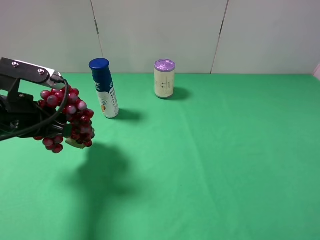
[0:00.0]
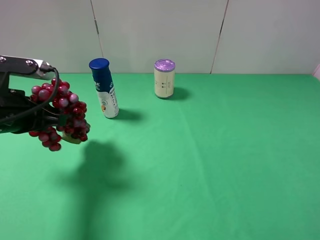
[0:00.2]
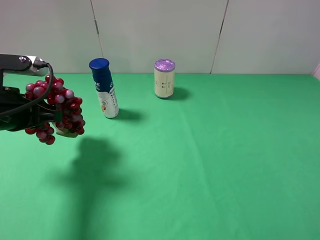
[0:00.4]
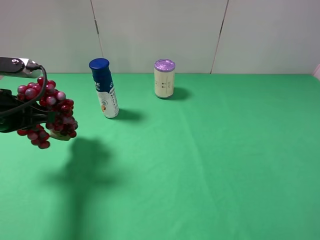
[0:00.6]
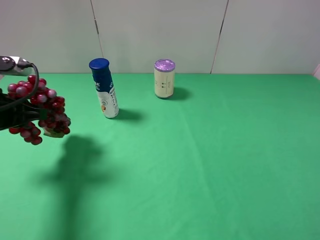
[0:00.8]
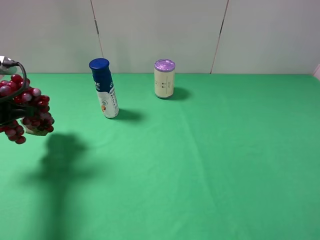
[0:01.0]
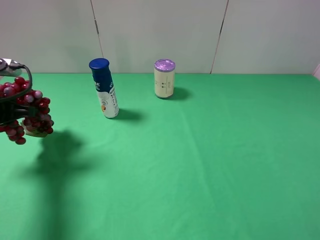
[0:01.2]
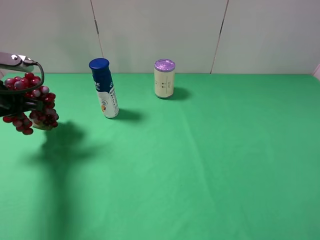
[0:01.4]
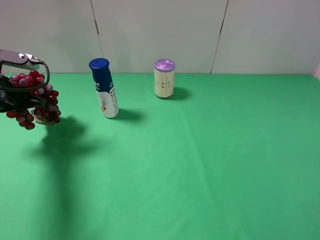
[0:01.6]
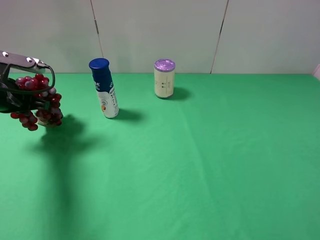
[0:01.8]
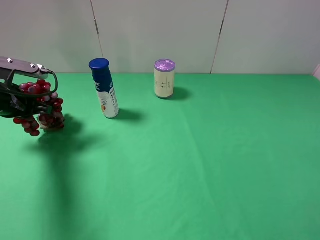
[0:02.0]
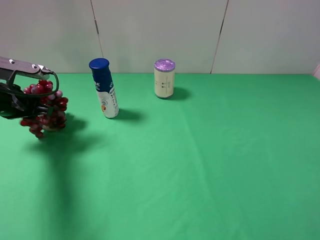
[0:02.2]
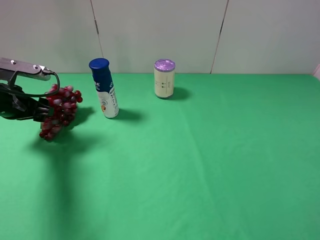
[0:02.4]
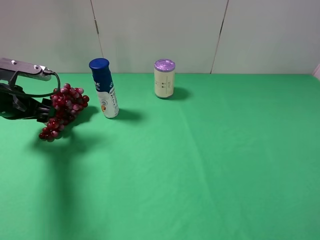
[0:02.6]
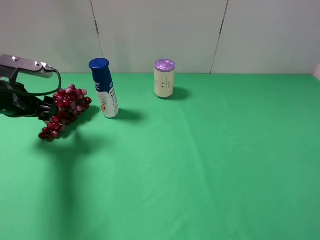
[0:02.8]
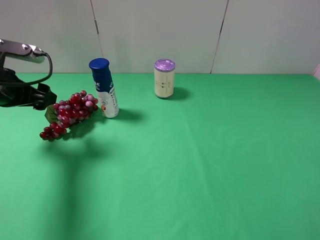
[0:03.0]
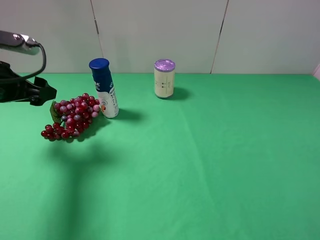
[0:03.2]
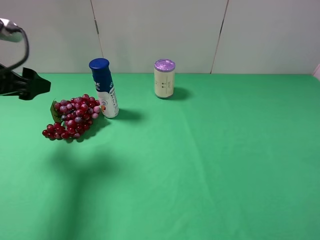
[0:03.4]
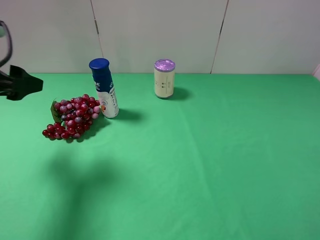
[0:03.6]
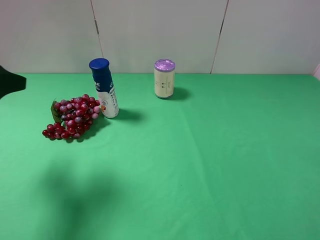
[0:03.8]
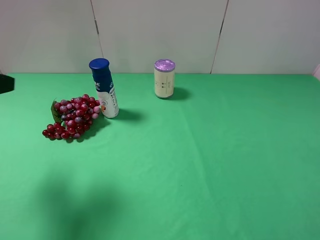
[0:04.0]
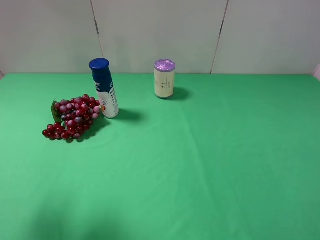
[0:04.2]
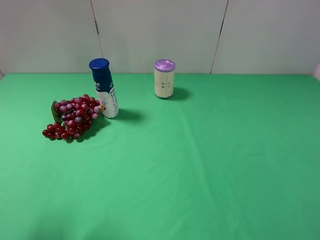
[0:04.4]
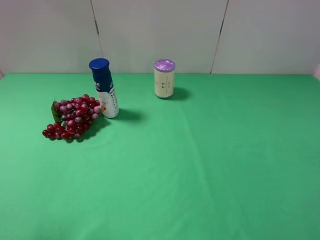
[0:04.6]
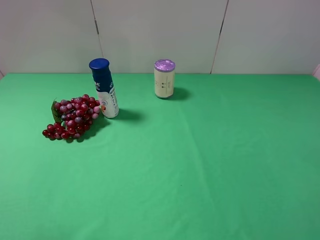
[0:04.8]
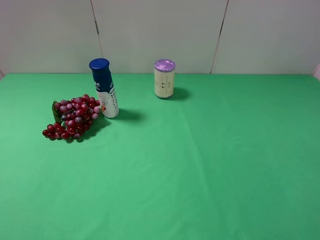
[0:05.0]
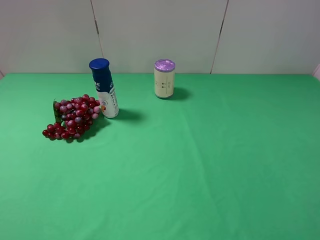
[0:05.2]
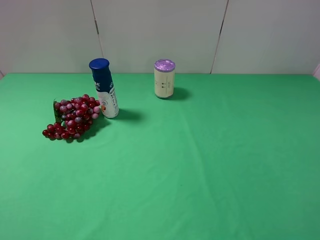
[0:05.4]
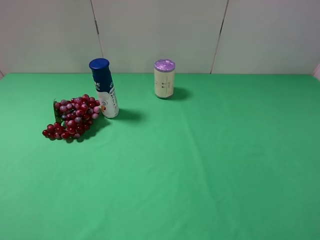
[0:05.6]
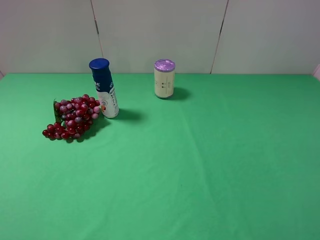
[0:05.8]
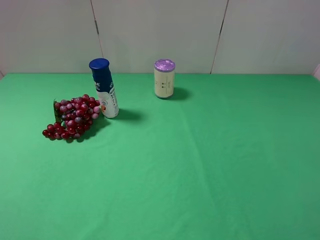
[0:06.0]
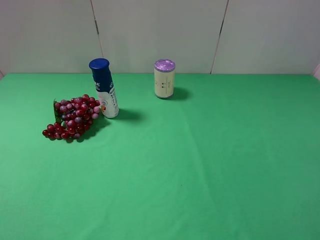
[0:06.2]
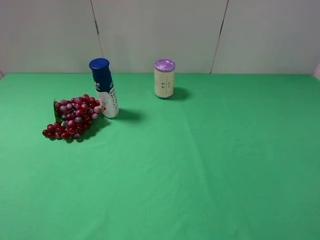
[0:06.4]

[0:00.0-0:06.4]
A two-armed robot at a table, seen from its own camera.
Task of the whole recording: use the right gripper to pick up the item and transfer it from the right gripper to the left gripper.
0.0 to 1.6 s: The left gripper is displaced forward and to the left by about 10 cm.
1.6 to 3.2 s: The left gripper changes place by some 5 cm, and opens.
3.2 to 4.8 s: The left gripper heads backward, covering approximately 25 cm.

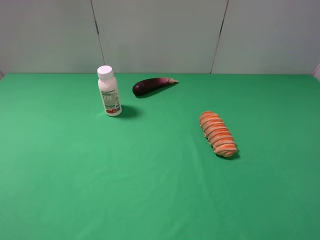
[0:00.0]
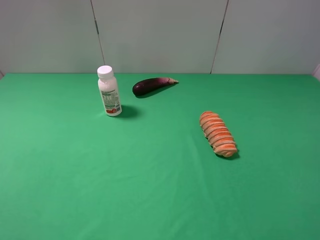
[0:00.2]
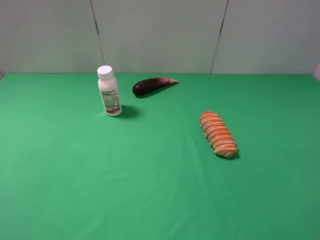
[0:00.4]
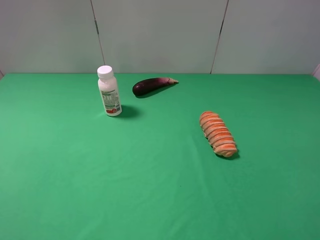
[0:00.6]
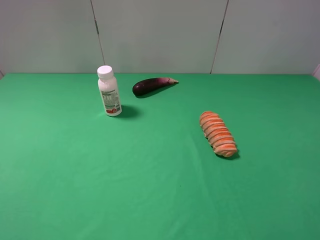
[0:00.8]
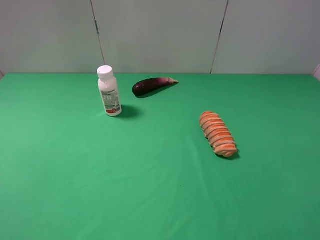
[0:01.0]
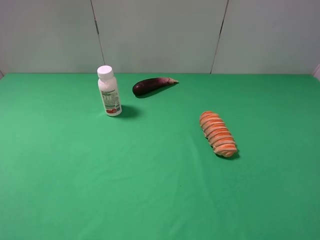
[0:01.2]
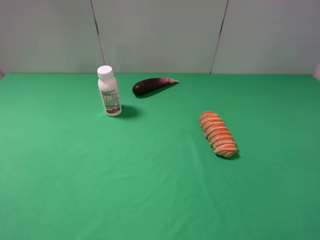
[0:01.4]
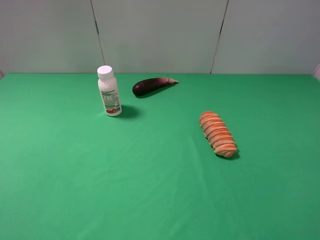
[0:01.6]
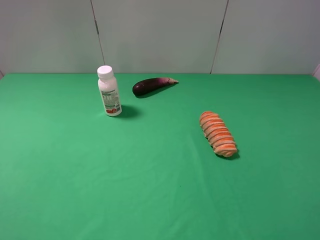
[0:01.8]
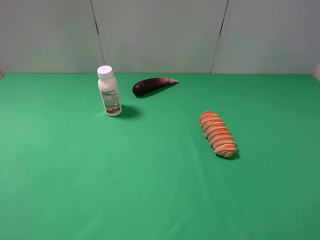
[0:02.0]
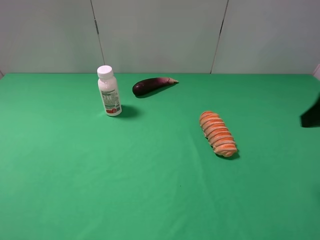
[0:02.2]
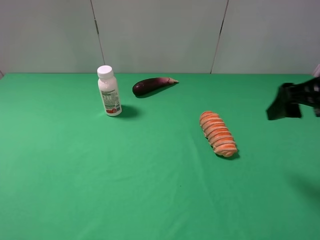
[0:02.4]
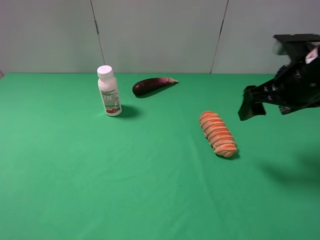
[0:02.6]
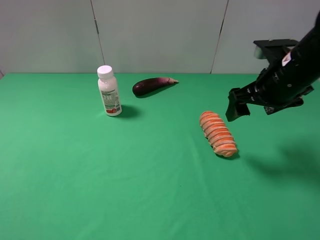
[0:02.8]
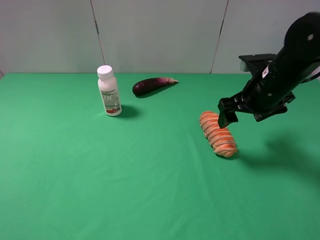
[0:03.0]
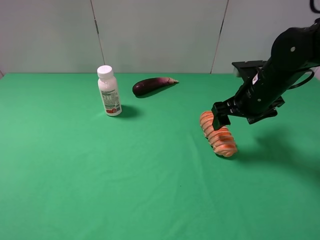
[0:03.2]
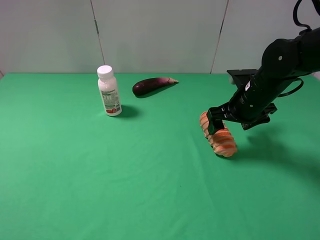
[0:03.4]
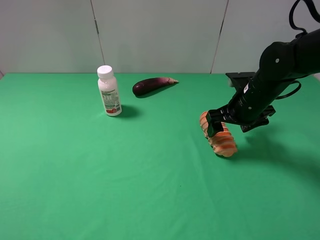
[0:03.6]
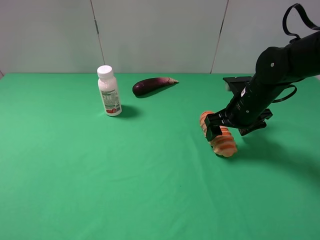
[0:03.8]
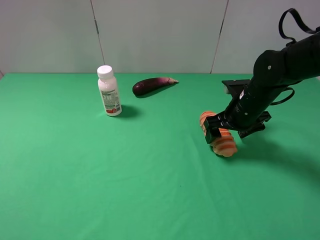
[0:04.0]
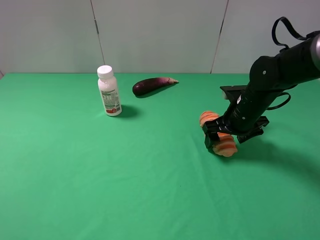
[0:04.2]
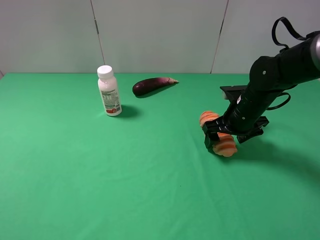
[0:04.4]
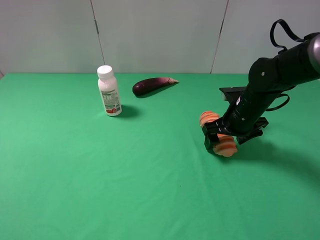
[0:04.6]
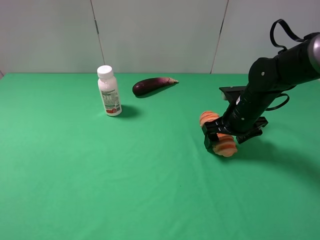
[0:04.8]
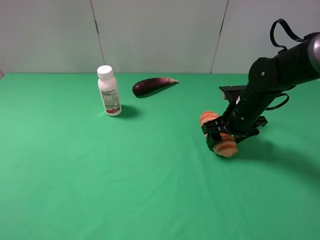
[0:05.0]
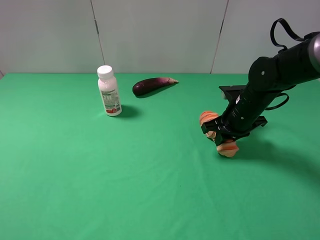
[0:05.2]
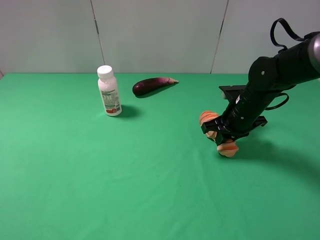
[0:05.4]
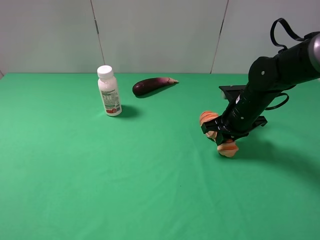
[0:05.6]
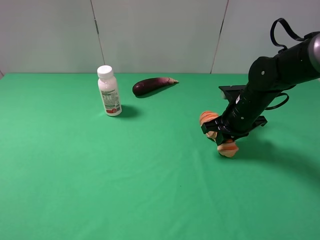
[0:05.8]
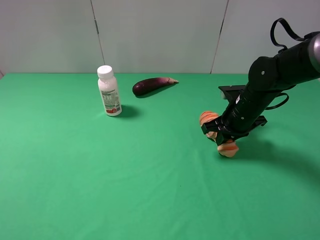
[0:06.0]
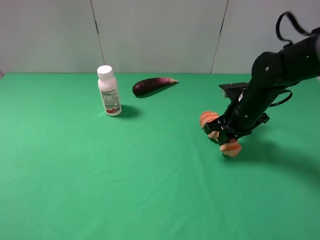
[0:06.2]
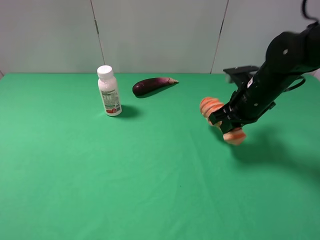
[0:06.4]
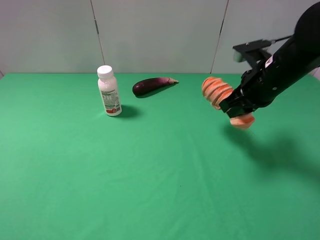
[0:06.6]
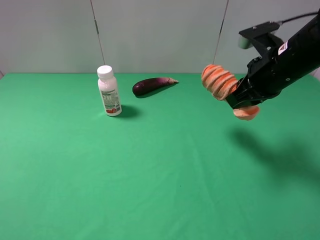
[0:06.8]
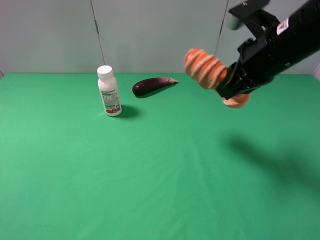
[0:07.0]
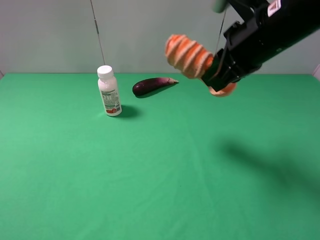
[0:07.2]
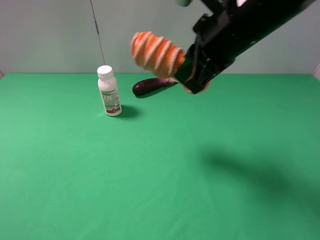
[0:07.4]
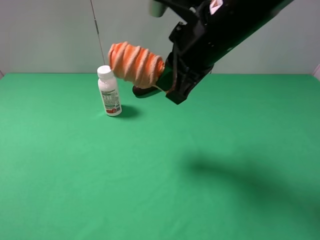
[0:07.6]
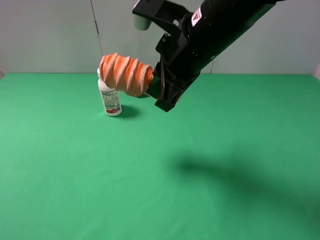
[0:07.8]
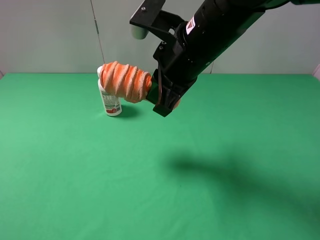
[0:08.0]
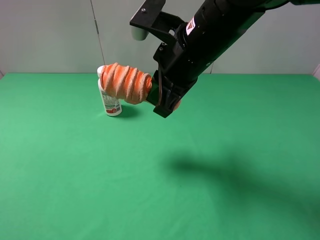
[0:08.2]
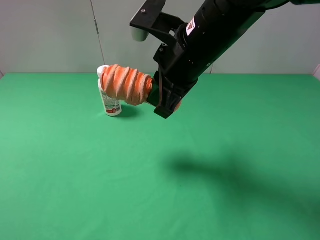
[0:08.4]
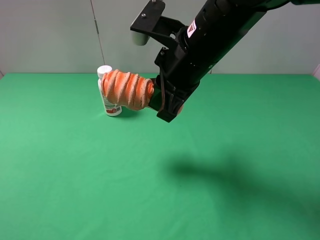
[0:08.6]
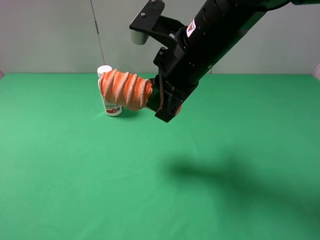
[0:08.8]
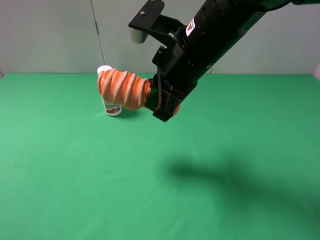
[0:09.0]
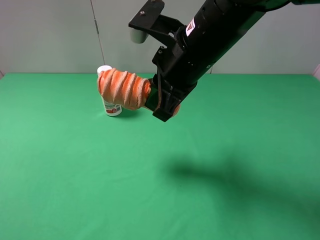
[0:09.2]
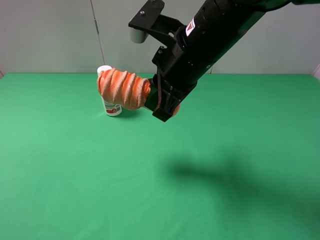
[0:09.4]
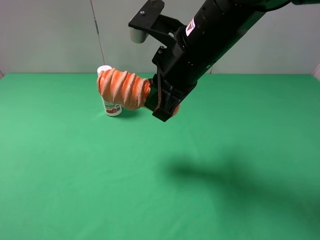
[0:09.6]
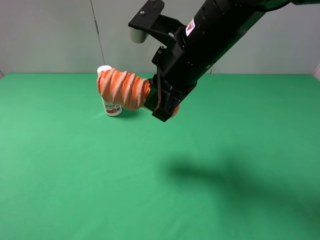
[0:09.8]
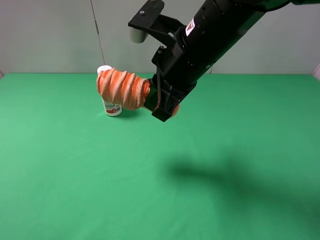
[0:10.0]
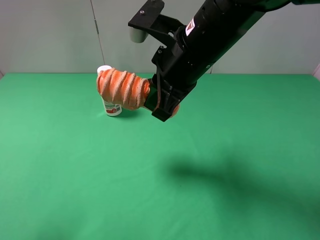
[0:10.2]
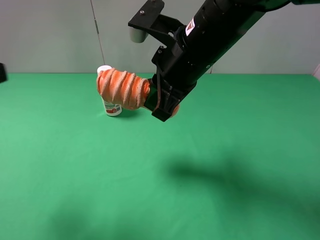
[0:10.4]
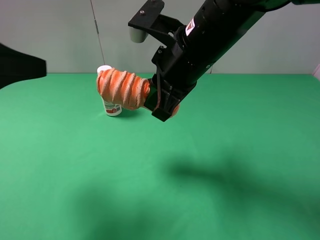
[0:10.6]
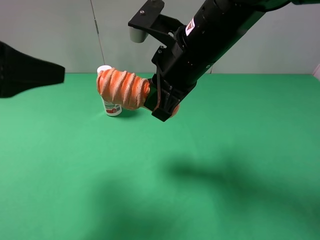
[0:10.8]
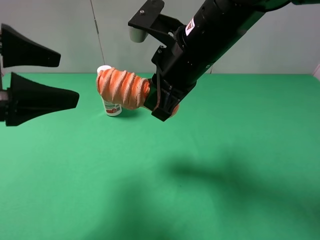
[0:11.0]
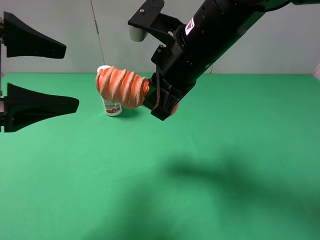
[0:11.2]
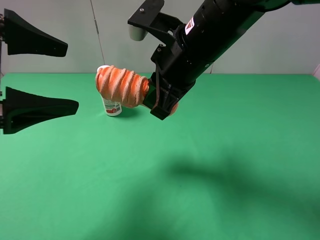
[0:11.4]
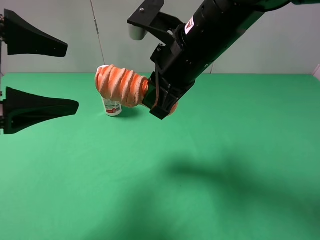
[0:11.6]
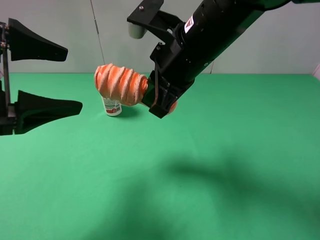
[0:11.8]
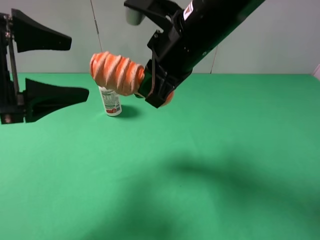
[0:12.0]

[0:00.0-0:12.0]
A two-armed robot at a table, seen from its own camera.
Task of the whole recording: use the right gripper to pick up the item and transfer it from the right gripper to the left gripper.
Step, 0.0 to 5.2 s: Use the right gripper to grab the bread on the right side of the table.
0.0 to 1.6 s: Both grippers stay put.
1.6 to 3.0 s: The right gripper shifts approximately 30 cm forward.
3.0 to 4.4 s: The right gripper moves downward, roughly 5 cm.
4.4 to 6.0 s: The right gripper closes its fingers.
6.0 to 7.6 s: The right gripper is displaced upward, to the left and backward by about 25 cm.
7.6 to 9.0 s: The grippers stay close to where they were, moving slightly.
9.0 to 10.4 s: The left gripper is displaced forward by roughly 10 cm.
10.4 to 12.0 s: The left gripper moves forward and to the right, roughly 10 cm.

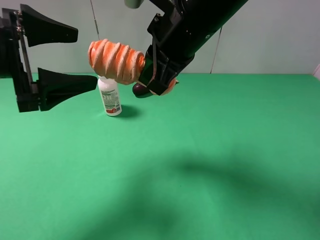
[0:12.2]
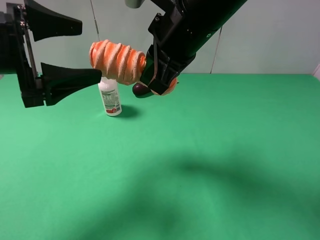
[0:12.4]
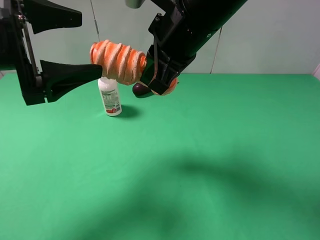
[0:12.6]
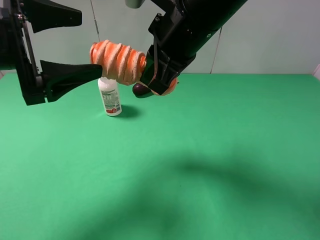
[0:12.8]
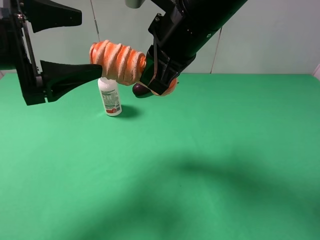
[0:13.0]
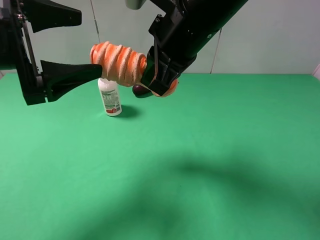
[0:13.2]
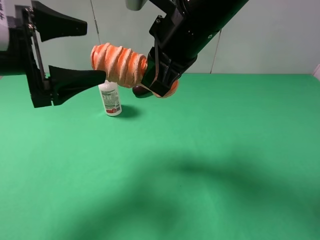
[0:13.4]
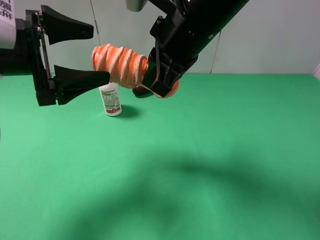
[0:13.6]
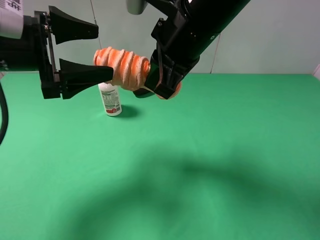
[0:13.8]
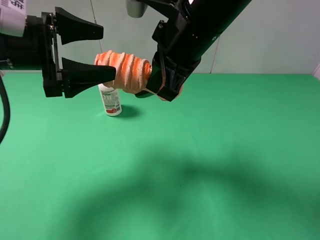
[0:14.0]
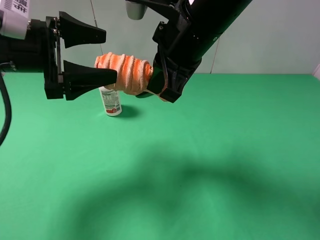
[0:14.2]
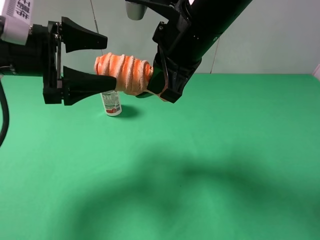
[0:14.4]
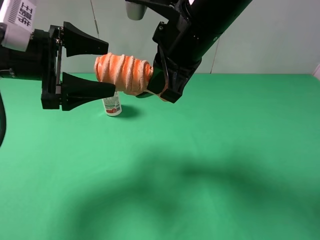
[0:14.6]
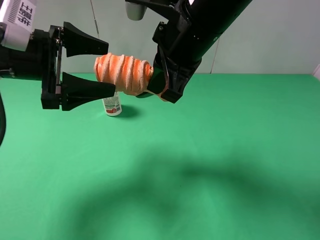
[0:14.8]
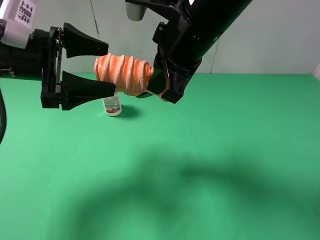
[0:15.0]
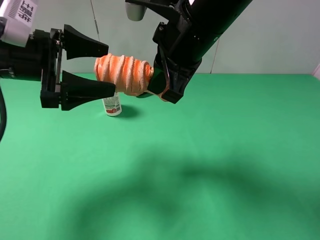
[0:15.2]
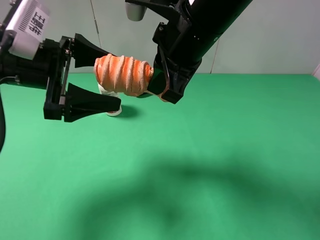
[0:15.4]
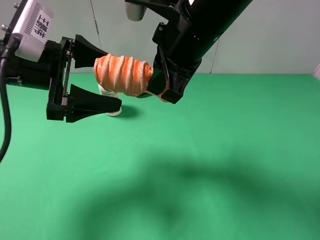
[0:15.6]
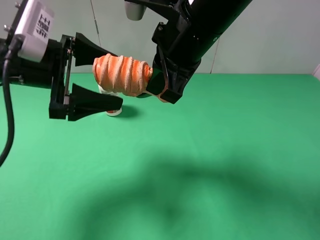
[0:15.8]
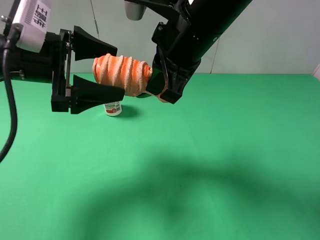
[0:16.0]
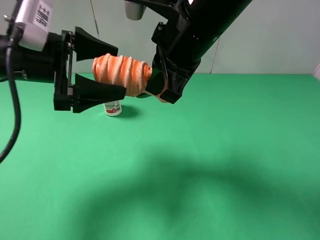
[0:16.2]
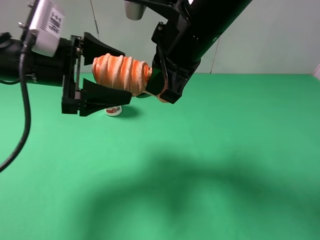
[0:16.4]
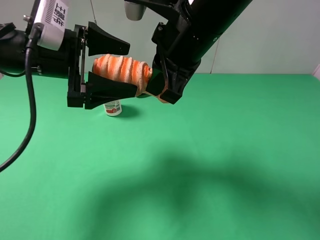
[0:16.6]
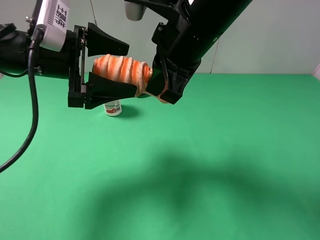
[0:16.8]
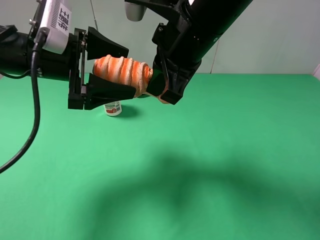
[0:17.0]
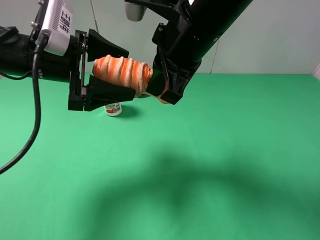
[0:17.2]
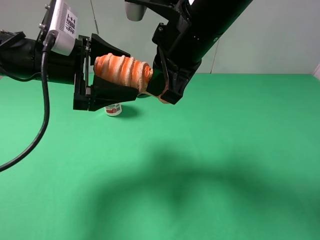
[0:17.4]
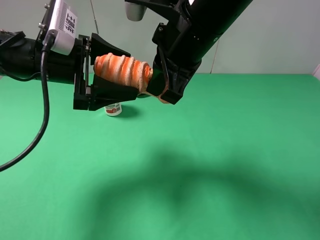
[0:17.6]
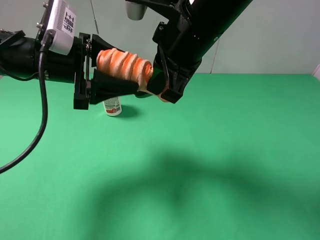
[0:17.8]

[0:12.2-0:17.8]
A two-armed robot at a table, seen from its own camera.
Task of the whole recording: use the right gripper to pick up the item and transfer it from the right gripper to the left gripper.
12.2 to 15.0 s: The grippers stay close to where they were, moving slightly.
15.0 to 16.4 s: There are only small adjustments of the grippers.
16.4 to 17.8 s: The left gripper closes up.
